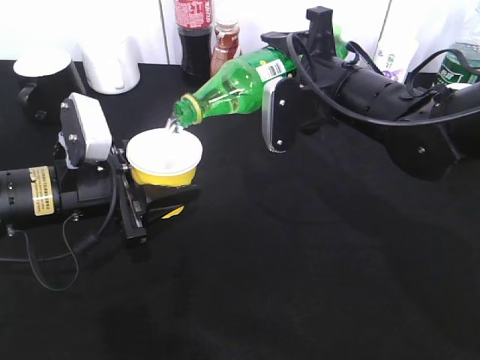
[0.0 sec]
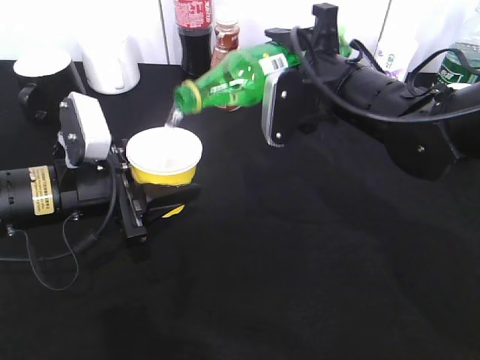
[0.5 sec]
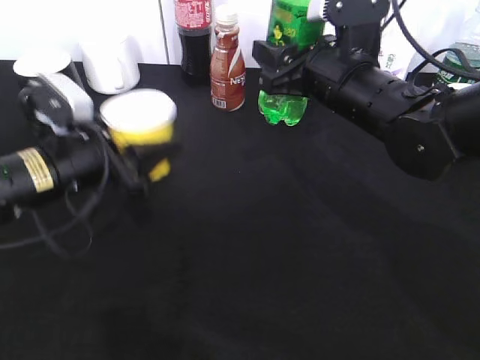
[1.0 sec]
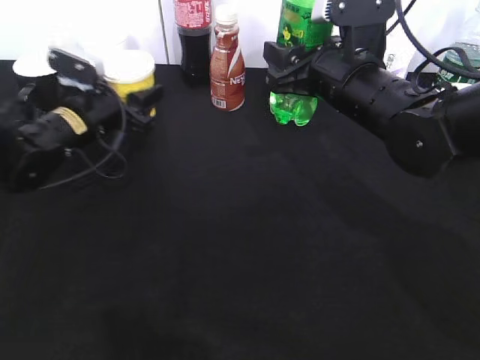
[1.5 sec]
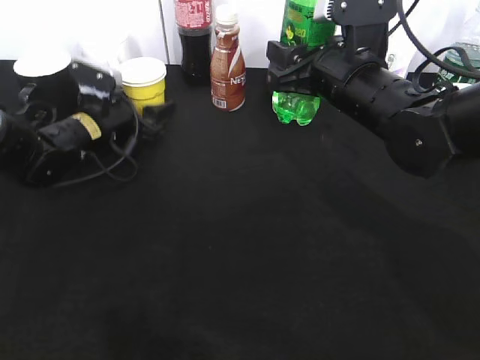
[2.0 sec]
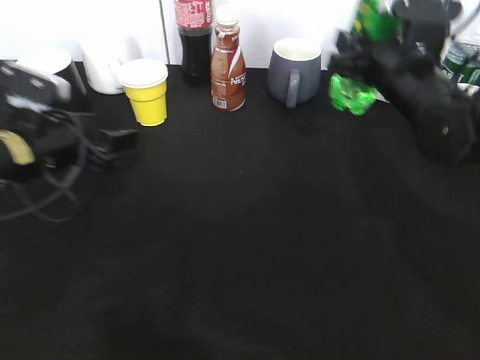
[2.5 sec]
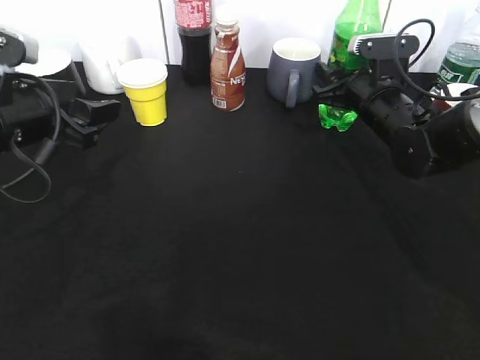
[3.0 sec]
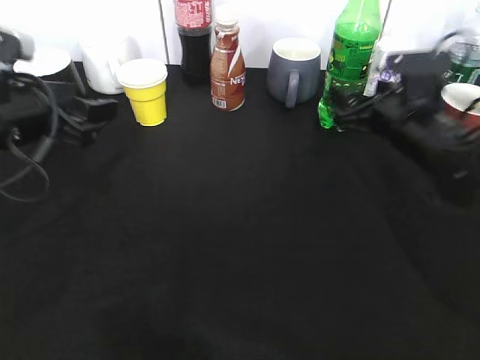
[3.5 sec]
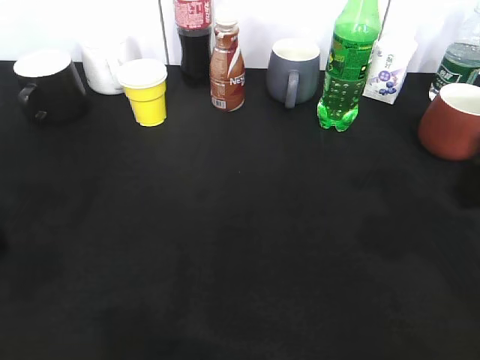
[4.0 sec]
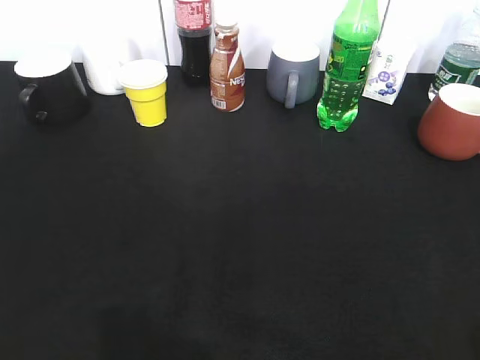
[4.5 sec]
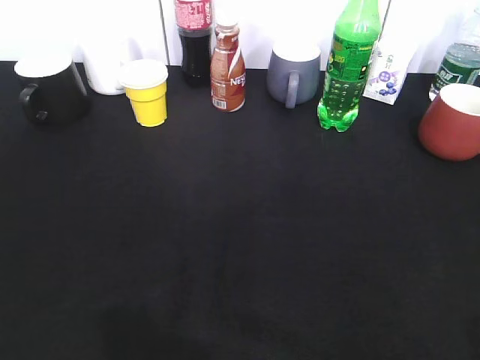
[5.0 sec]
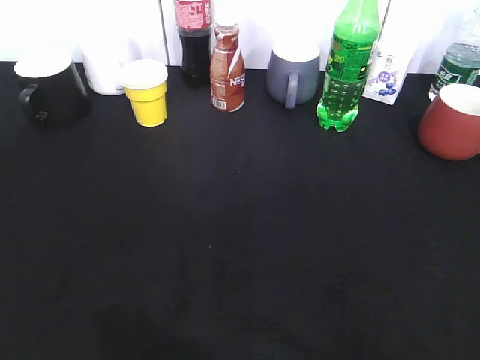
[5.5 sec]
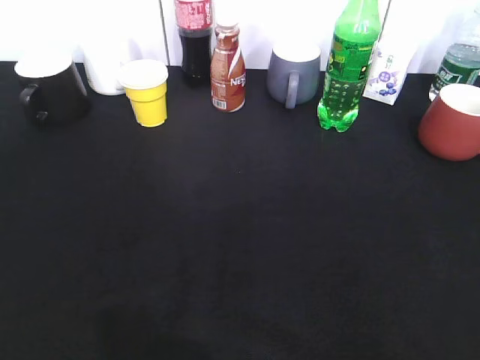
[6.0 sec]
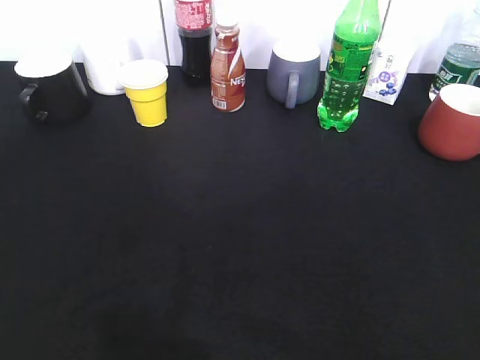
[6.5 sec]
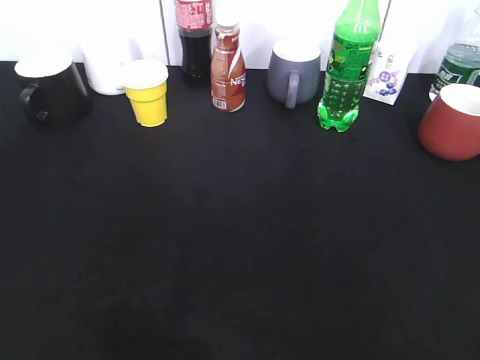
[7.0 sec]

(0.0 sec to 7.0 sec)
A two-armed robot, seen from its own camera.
Step, 1.0 sec - 3.0 sec: Place the sprite bottle on the table with right gripper.
0.0 sec - 2.0 sec: The left gripper shifts approximately 15 cm forward.
2.0 sec - 3.5 sec: The right gripper heads to the right, covering approximately 10 cm, and opens. The left gripper is displaced backward and upward by roughly 20 cm.
3.5 sec - 5.0 sec: The two grippers go about 30 cm backward.

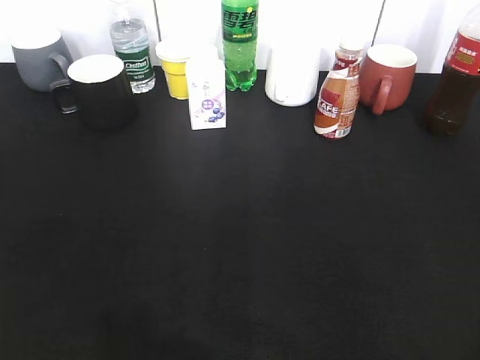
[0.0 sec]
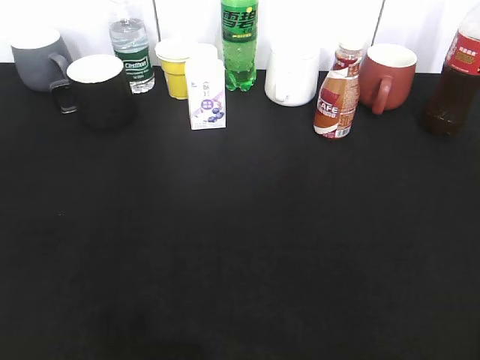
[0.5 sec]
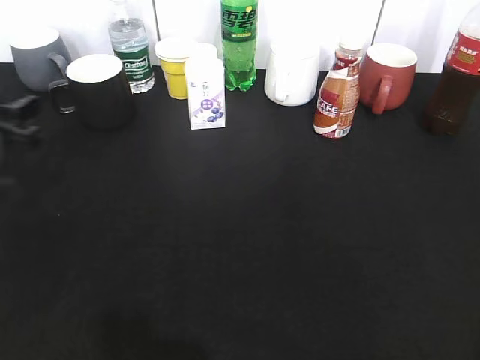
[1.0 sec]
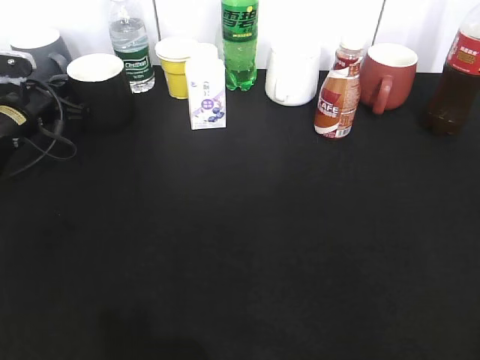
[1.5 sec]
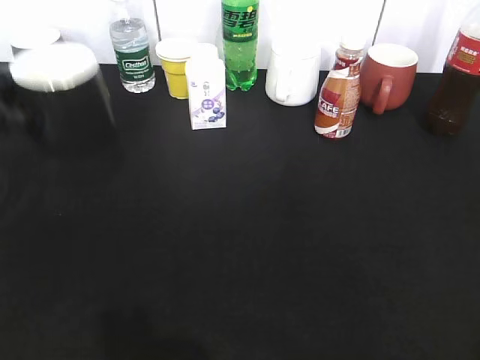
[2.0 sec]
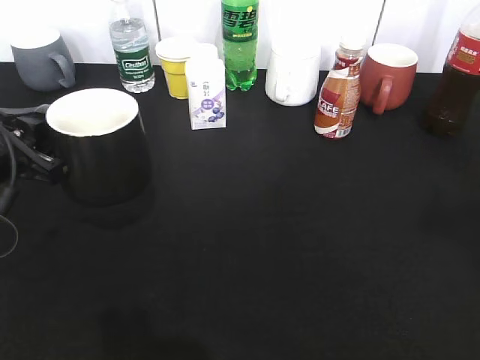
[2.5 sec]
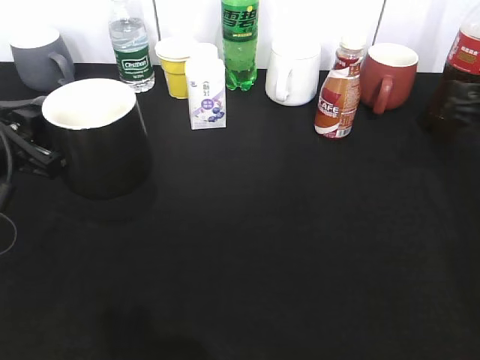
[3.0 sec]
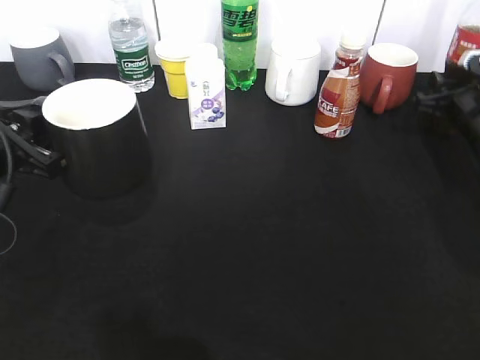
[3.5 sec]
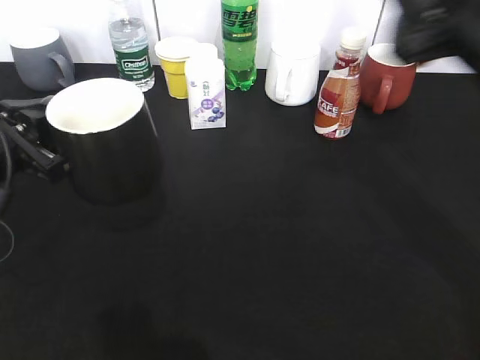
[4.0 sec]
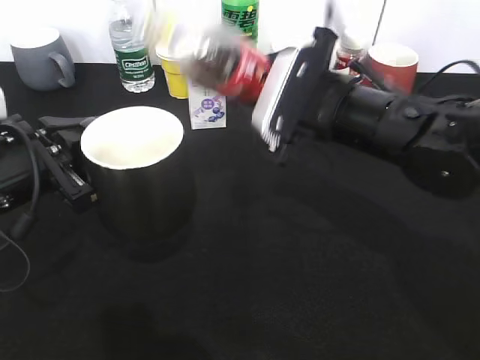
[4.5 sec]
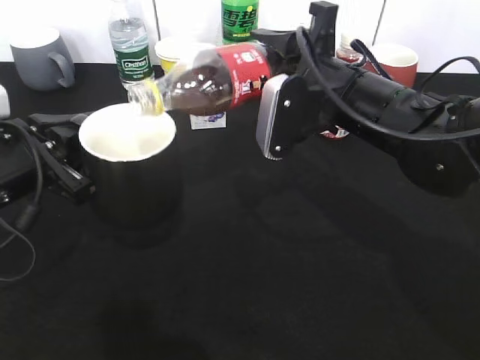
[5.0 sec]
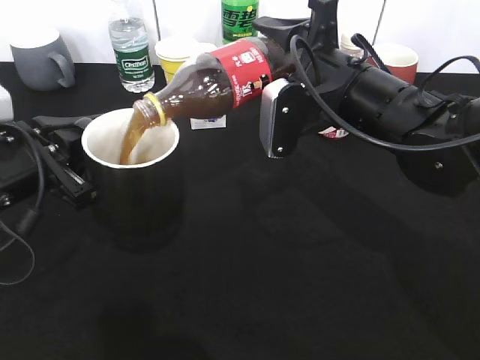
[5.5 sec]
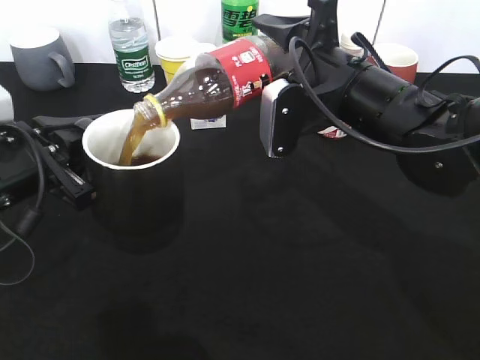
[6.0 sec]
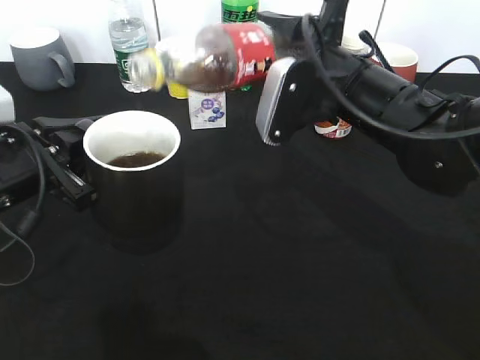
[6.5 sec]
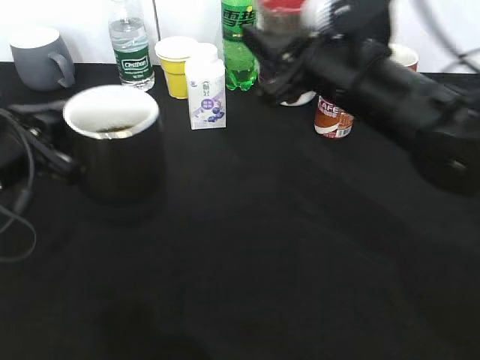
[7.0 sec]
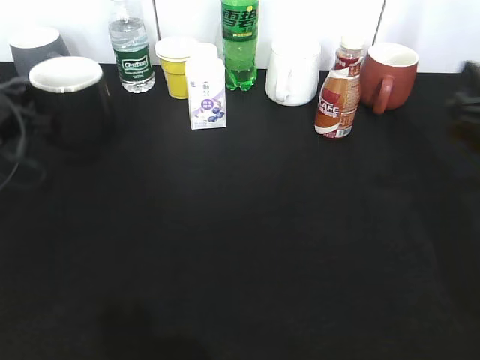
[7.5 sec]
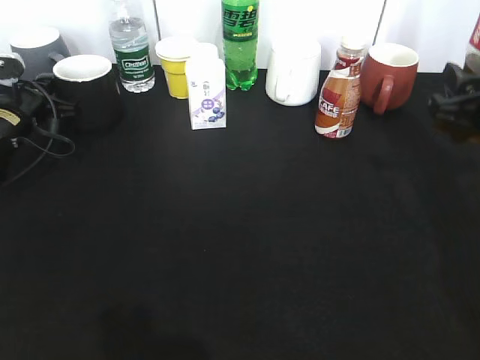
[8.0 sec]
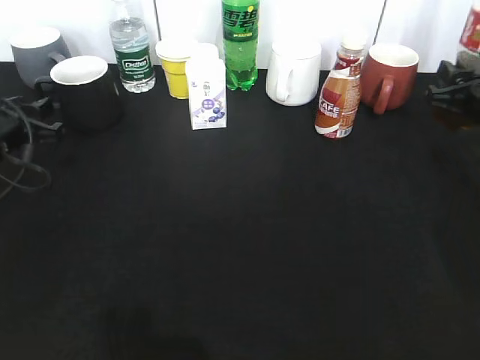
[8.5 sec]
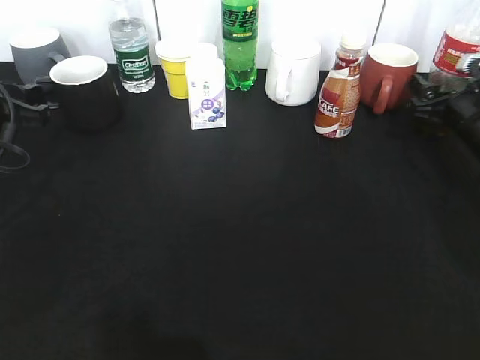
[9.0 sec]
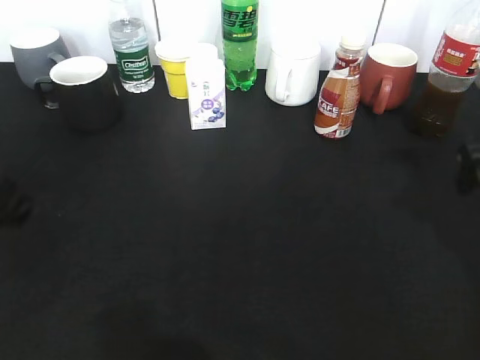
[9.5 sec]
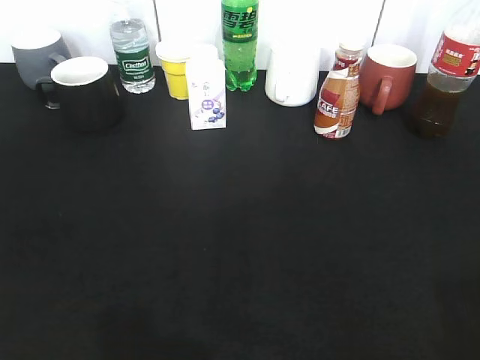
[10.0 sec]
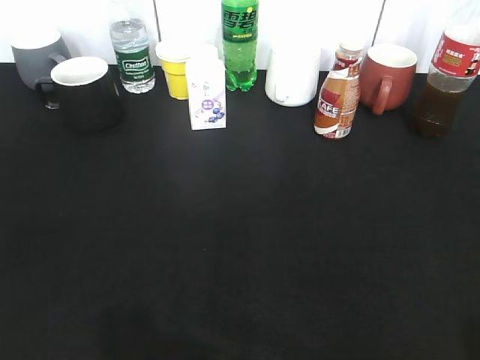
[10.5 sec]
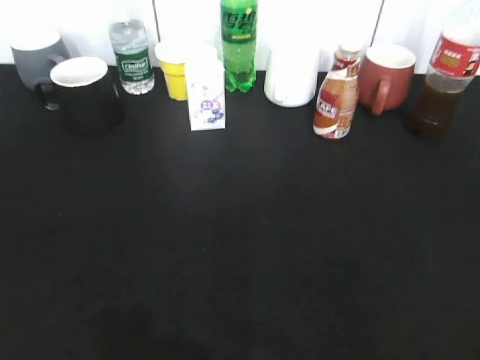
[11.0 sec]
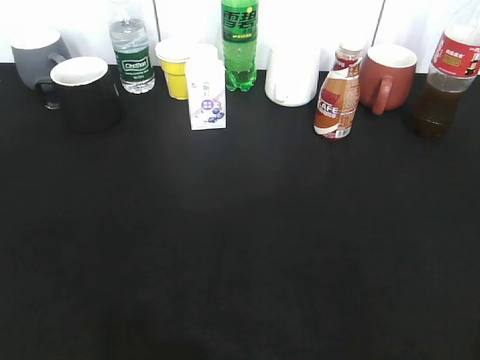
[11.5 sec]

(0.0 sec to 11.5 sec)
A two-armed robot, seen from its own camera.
Step, 0.0 sec - 1.5 sec: Grasp the black cup with left gripper.
Step, 2.0 sec - 2.5 sec: Lift the black cup with left gripper.
Step, 4.0 sec - 6.5 sec: Pour the cola from bottle to cup with right gripper.
Step, 7.0 sec - 8.5 sec: Place the black cup on the table with left gripper.
0.0 sec - 2.0 sec: The left gripper travels forward by some 30 cm, and closes its fingers.
2.0 sec - 4.0 sec: The left gripper ends up roughly 5 cm from where it was, while the right gripper moves forward, some 30 cm, and closes its fingers.
4.0 sec - 6.0 sec: The right gripper heads to the left, covering roughly 10 cm.
6.0 sec - 7.5 sec: The right gripper goes some 15 cm to the right. The left gripper heads forward and to the left, covering about 10 cm.
7.5 sec - 9.5 sec: The right gripper reaches roughly 15 cm forward, then returns, and opens, while the left gripper goes approximately 10 cm backward and upward, and opens up.
9.5 sec - 11.5 sec: The grippers both shift backward by approximately 25 cm.
